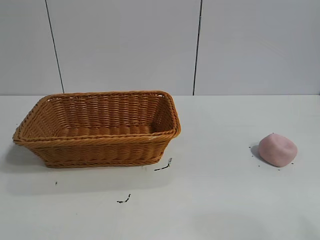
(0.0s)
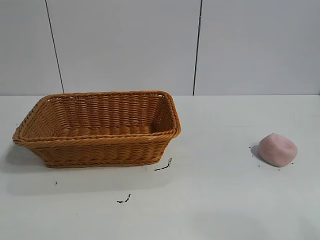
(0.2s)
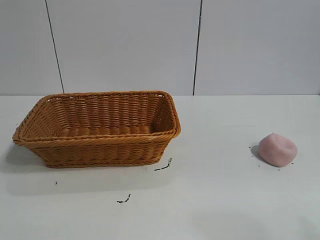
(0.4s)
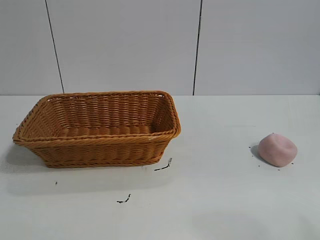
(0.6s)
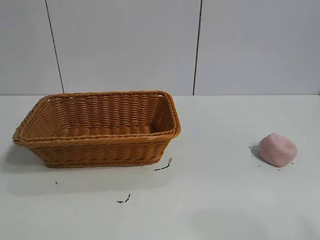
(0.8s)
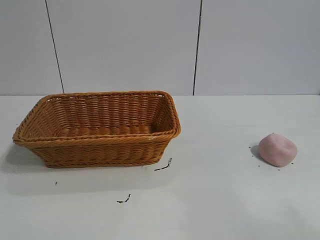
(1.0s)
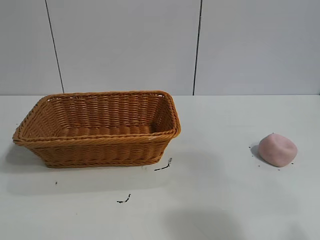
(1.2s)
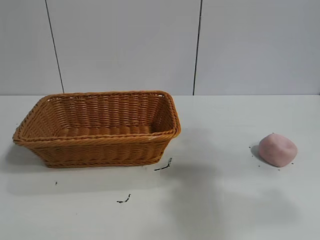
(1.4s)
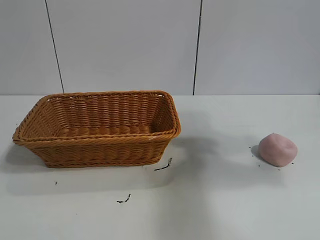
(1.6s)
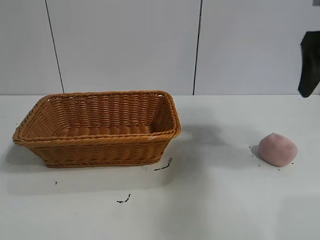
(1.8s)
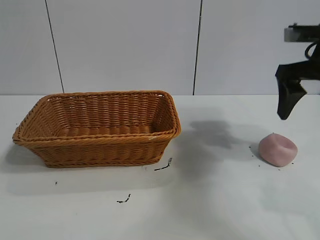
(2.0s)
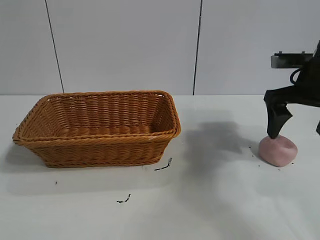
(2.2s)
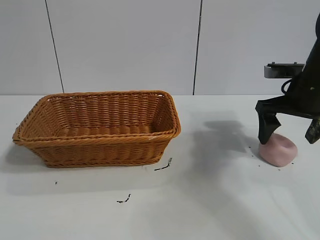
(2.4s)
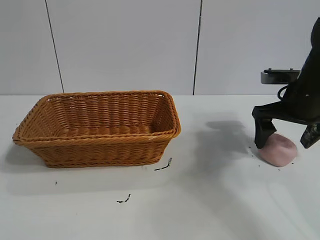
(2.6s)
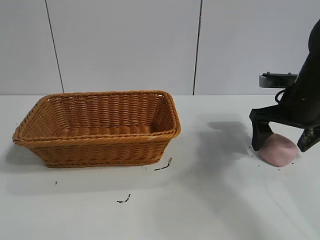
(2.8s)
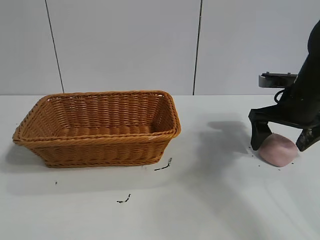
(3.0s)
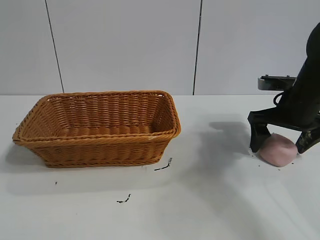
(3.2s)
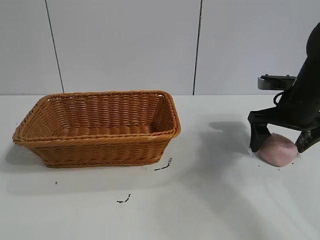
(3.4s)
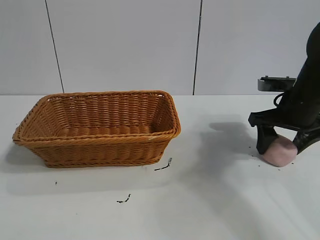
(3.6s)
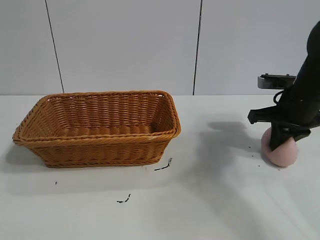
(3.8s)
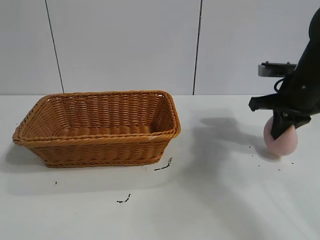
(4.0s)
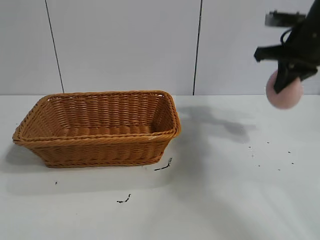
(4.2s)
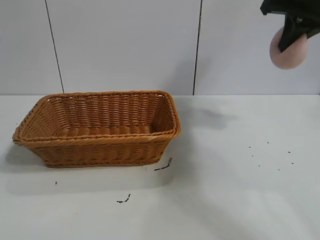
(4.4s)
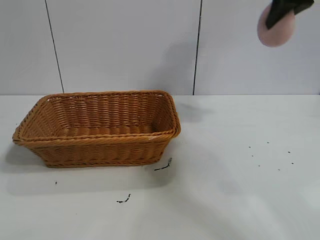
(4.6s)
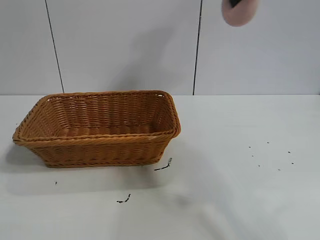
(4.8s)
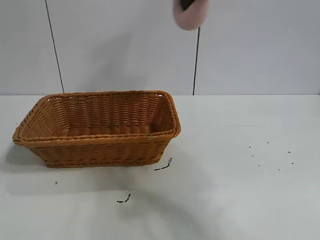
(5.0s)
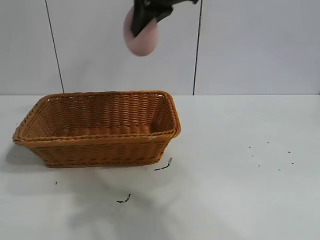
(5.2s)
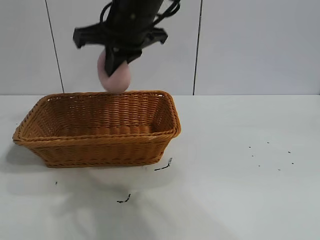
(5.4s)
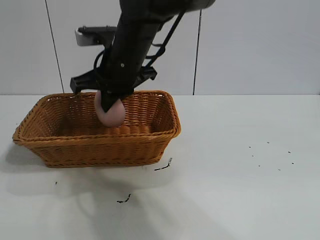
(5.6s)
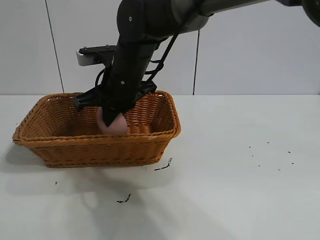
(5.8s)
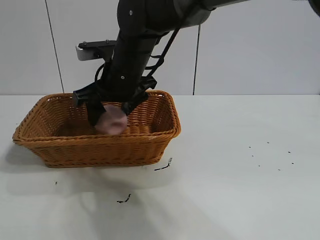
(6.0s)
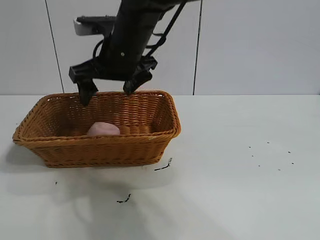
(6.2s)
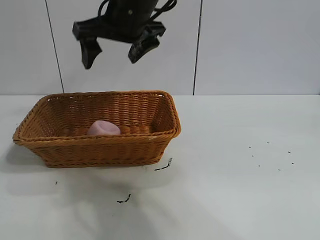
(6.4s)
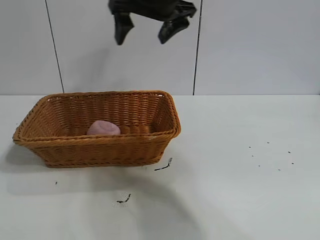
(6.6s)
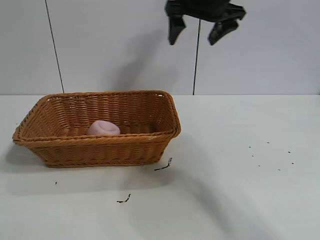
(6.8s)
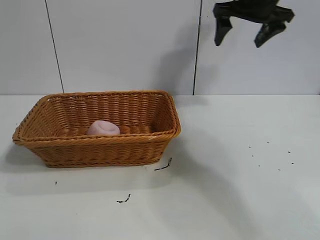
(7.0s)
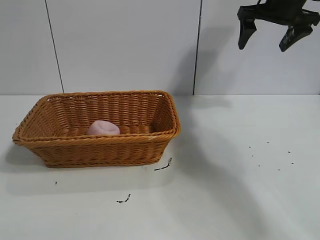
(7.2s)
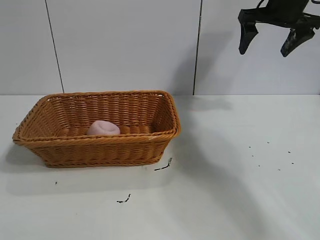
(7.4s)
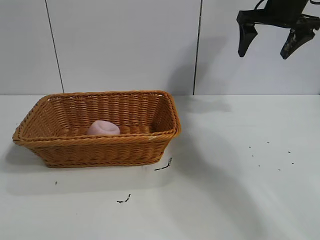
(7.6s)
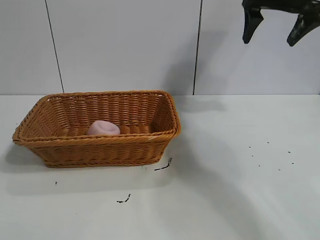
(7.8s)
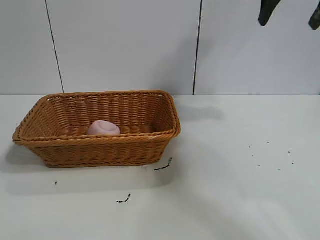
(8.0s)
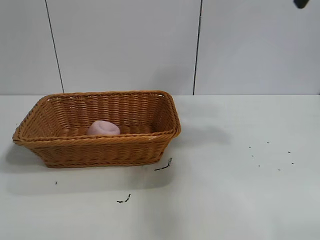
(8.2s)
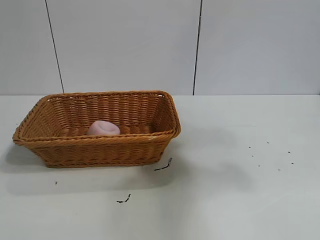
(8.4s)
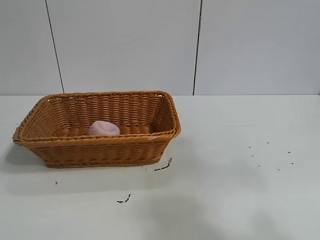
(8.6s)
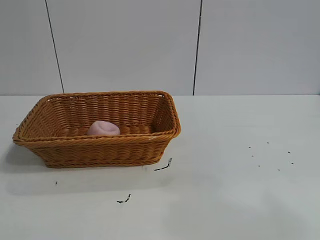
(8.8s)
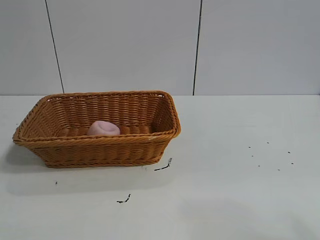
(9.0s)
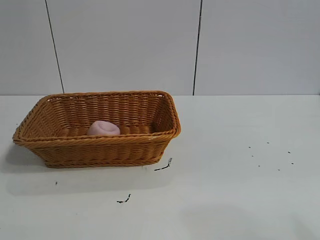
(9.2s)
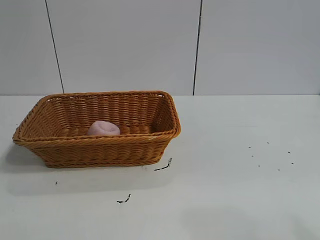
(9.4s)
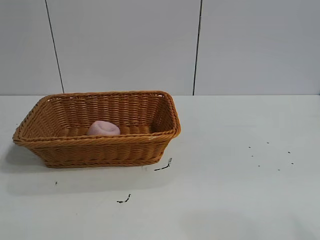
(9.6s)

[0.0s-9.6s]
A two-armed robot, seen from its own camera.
Task of the whole recording: pick up the peach and put it into the basket.
Step, 0.8s to 3.6s: Grasp the peach with right gripper.
Step, 4.0s to 6.0s: Place the peach in the basket with right gripper.
